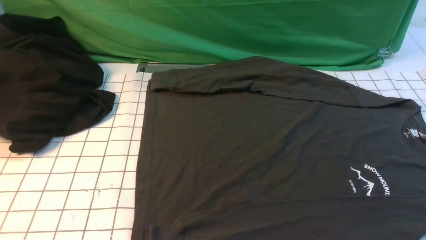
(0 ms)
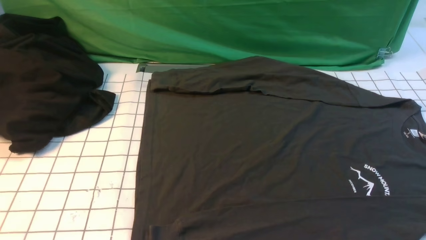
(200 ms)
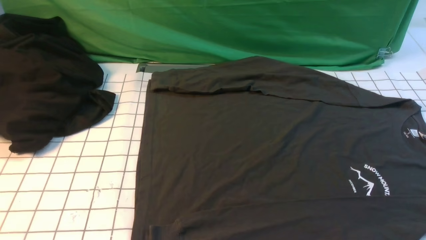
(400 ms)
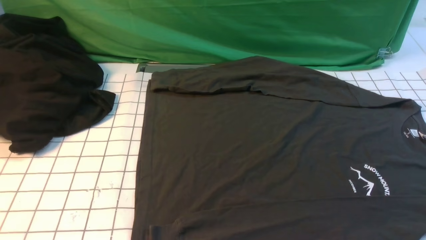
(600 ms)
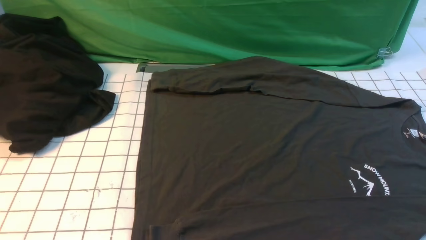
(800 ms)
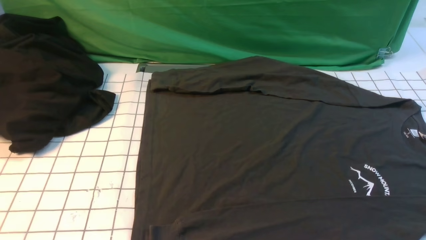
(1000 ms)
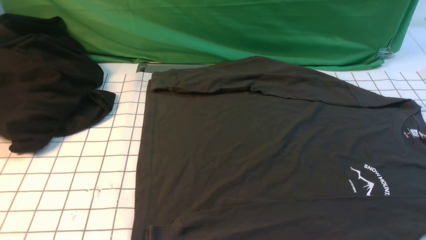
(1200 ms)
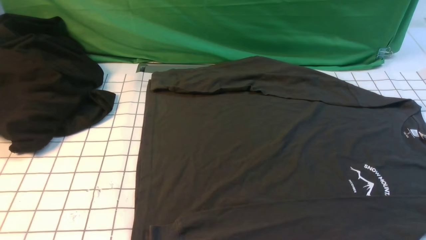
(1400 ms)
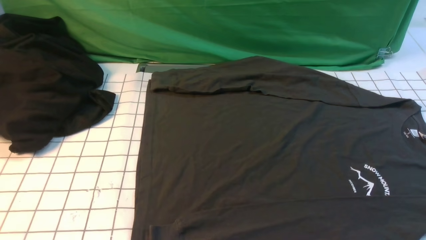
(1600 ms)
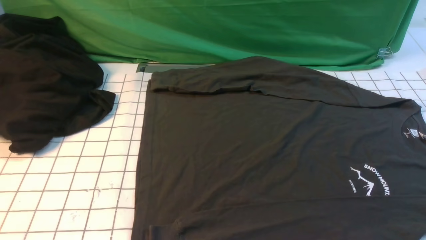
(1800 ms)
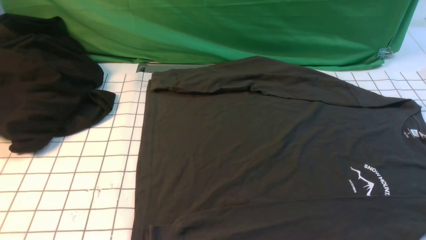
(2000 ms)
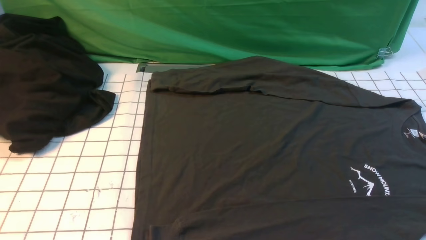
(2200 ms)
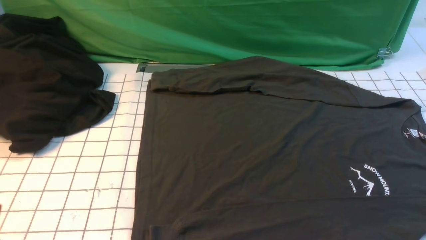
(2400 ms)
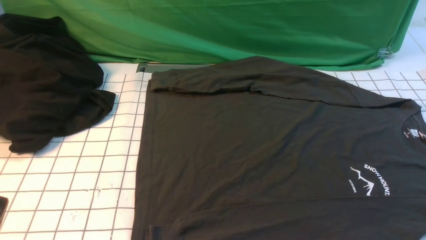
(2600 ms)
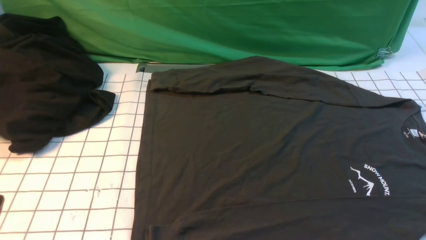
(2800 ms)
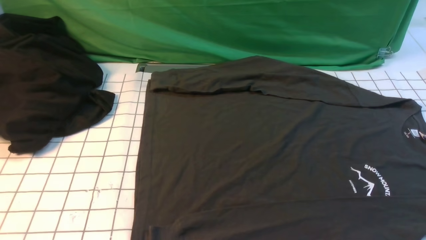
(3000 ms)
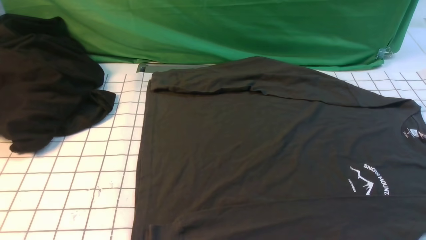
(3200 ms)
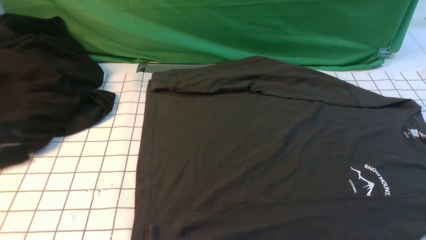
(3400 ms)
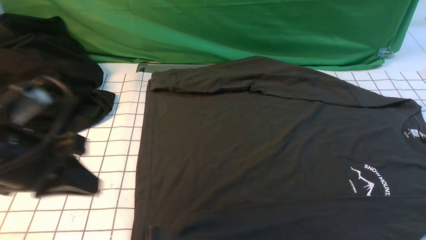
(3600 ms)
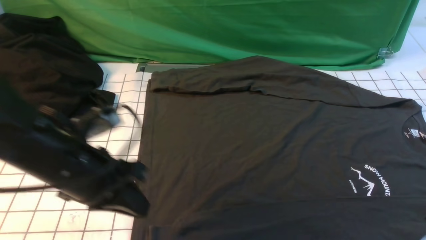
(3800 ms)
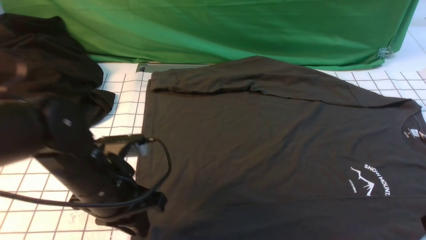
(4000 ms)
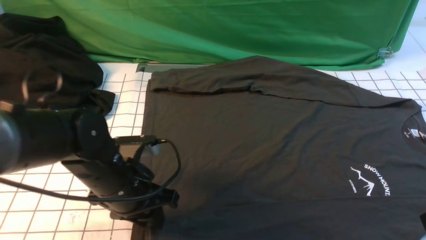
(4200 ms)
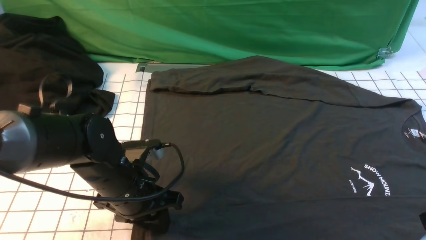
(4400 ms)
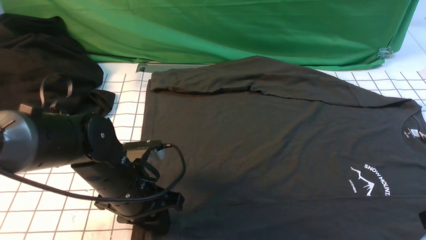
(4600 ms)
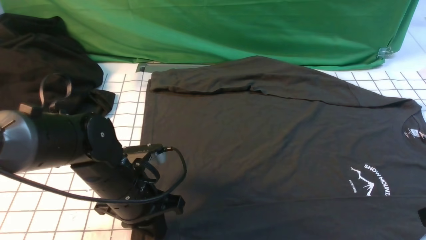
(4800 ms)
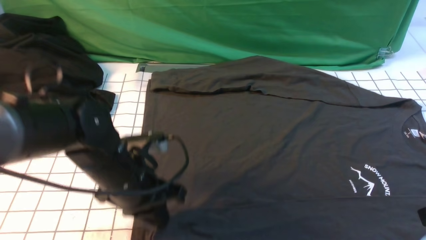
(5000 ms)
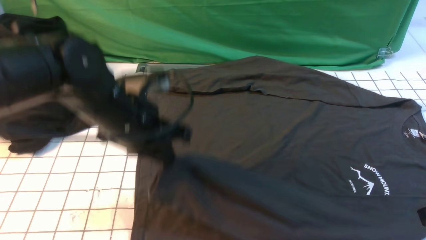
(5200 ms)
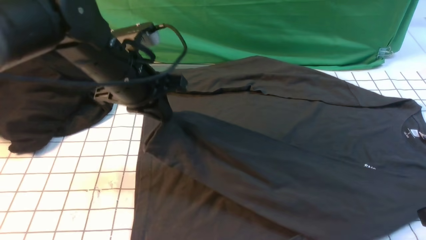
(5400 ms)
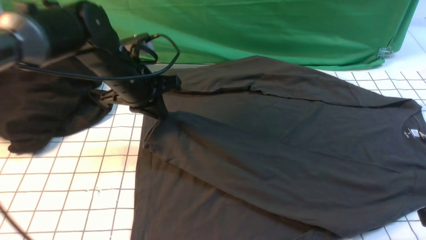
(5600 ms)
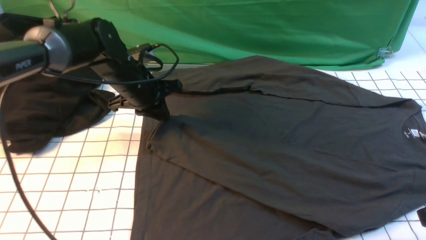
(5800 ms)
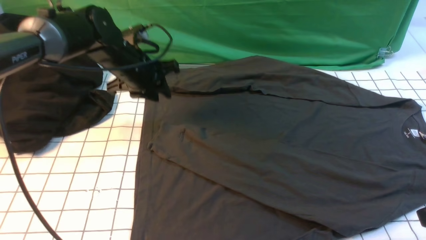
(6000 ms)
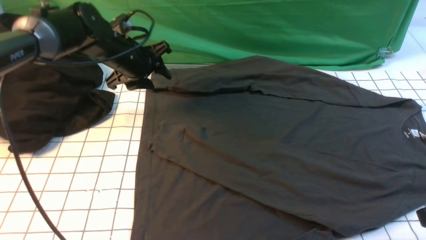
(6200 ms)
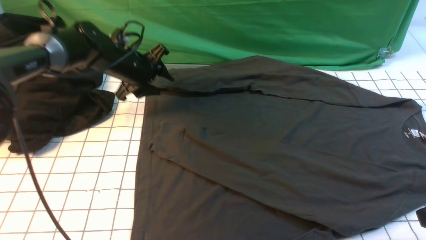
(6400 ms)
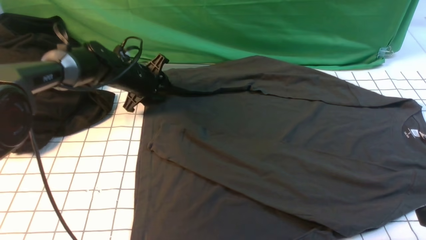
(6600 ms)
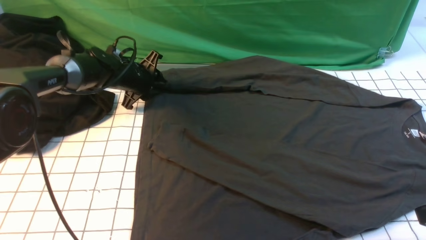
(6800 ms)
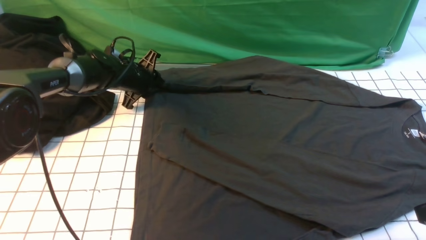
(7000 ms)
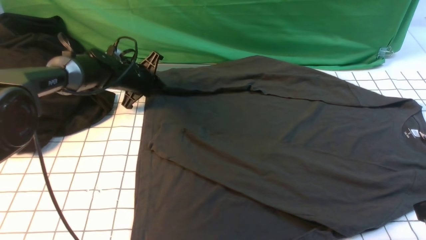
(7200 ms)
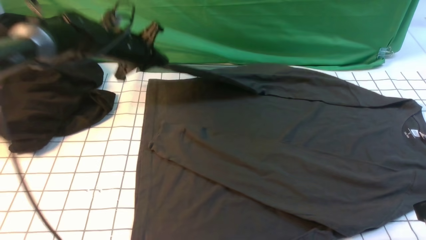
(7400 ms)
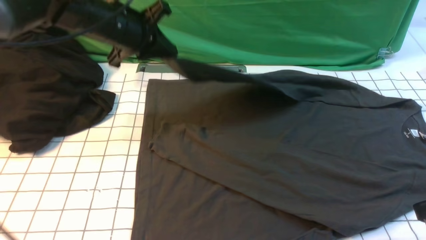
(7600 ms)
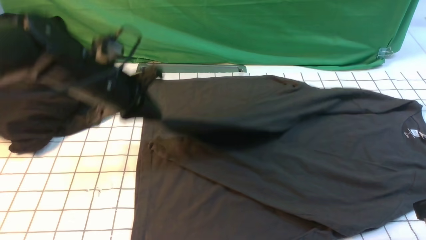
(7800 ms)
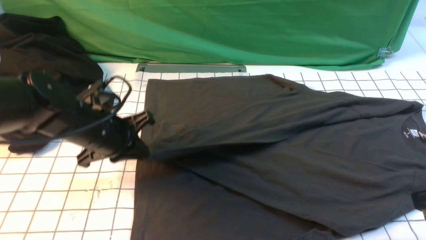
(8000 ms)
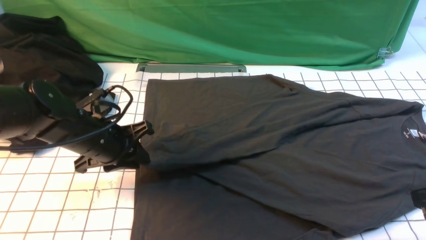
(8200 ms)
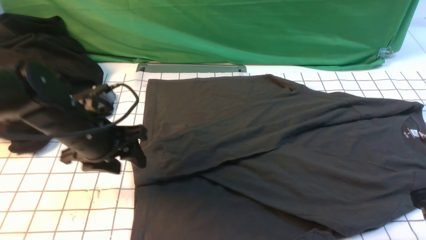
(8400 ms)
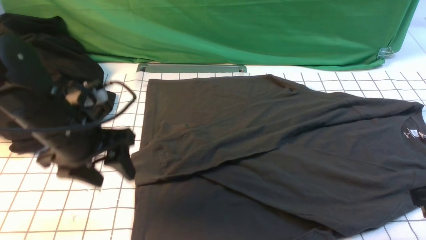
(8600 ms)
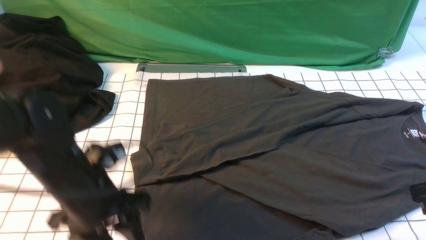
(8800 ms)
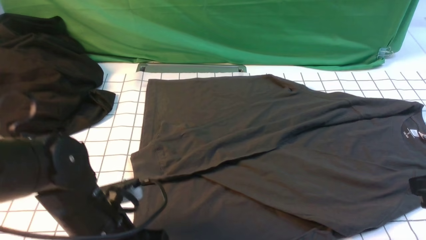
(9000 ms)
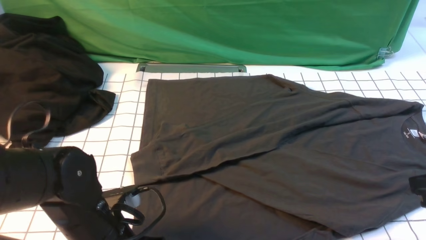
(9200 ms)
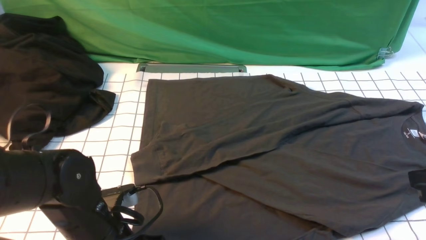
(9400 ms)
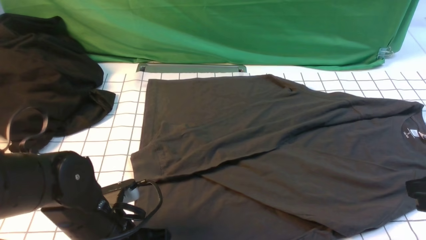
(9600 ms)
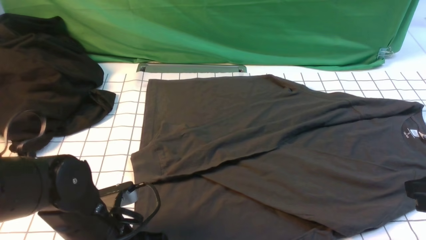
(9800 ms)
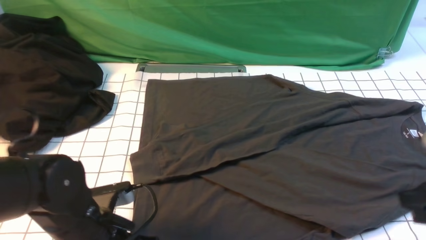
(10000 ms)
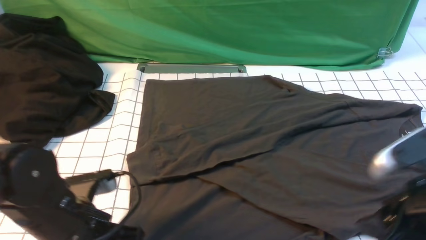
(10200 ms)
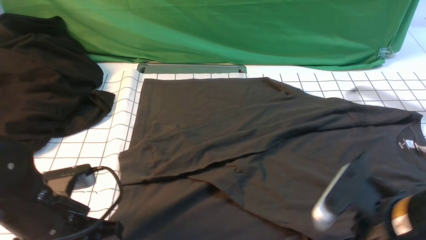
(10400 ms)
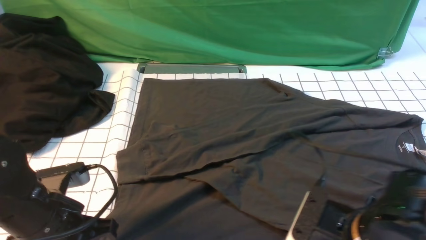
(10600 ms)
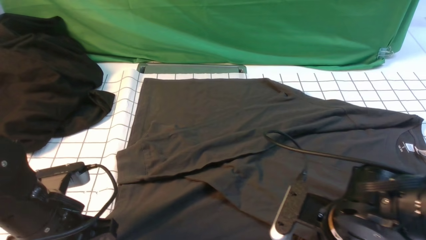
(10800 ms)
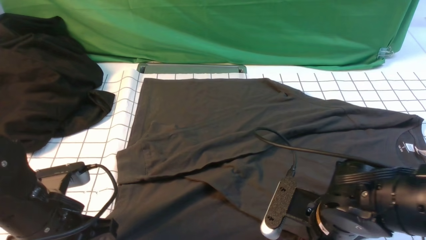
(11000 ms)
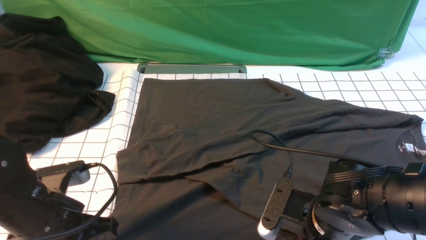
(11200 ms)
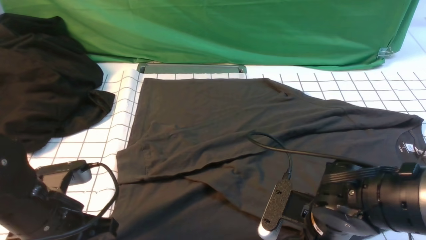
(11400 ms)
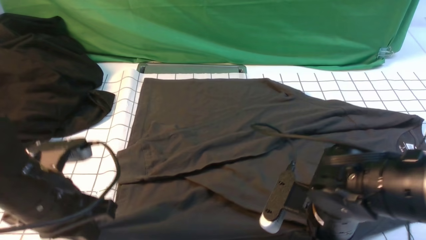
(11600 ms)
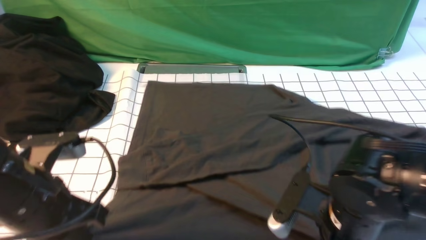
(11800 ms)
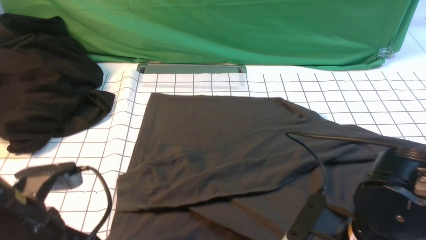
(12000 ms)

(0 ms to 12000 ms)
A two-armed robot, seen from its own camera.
Step, 0 ms - 4800 ms: use the left arm to clamp the cuff closest to it.
Step, 5000 ms - 5800 ms: use the left arm to drag and place the cuff at the centered position on the left edge of the fabric.
Step, 6000 ms - 7000 ms: use the left arm to clamp the cuff farthest from it.
Step, 7200 ms - 8200 ms: use the left arm to drag and drop the cuff onto the cuff closest to the left arm.
Step, 8400 ms - 11200 ms: use both arms simultaneously to clamp the lower edge of the clothing fabric.
0 ms - 1600 ms: The two grippers keep their place.
3000 ms - 4400 ms: The left gripper goes about 25 cm forward, to the right and downward, and opens up; the right gripper travels forward by about 10 cm.
4400 ms - 6000 ms: The left gripper moves forward, approximately 20 cm, and closes, then reopens.
6000 ms - 7600 ms: The left gripper heads upward, covering roughly 5 cm, and closes its fingers.
7600 ms - 9000 ms: The left gripper heads backward and downward, covering approximately 25 cm, and opens its fingers.
9000 ms - 10400 ms: The right gripper shifts approximately 10 cm to the left and downward, and opens up, while the left gripper moves about 5 cm, and closes its fingers.
10400 ms - 12000 ms: The right gripper closes up. The left gripper goes approximately 5 cm upward.

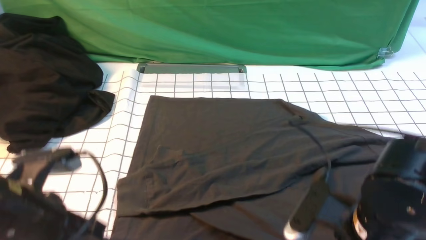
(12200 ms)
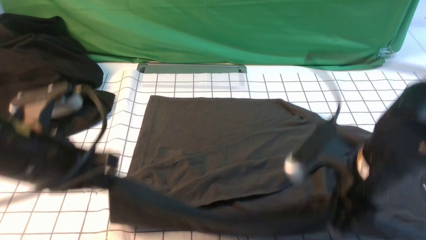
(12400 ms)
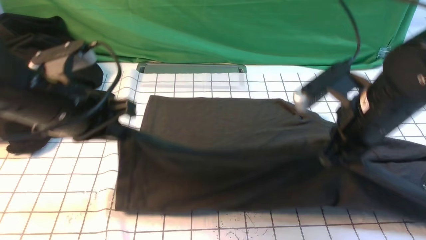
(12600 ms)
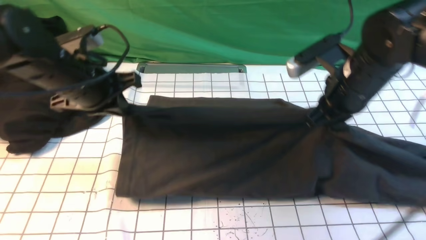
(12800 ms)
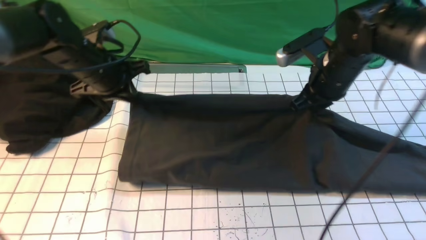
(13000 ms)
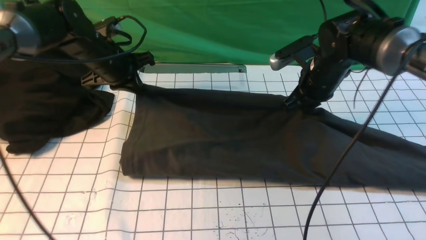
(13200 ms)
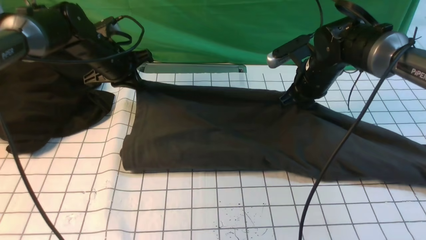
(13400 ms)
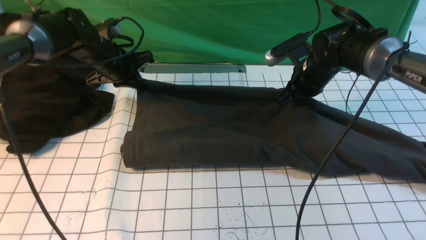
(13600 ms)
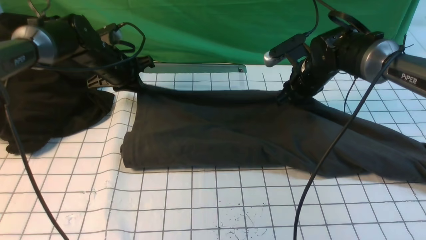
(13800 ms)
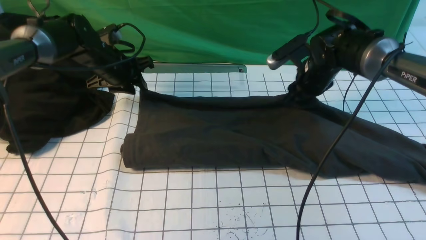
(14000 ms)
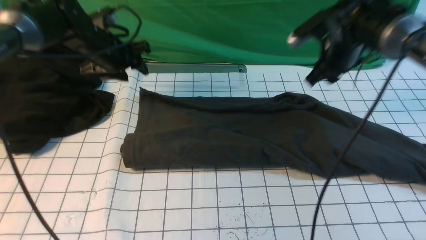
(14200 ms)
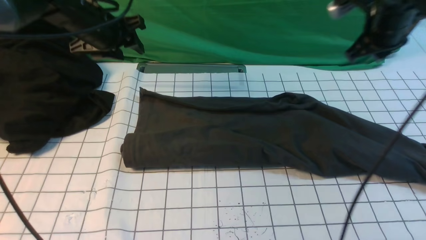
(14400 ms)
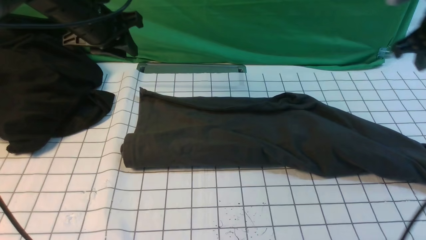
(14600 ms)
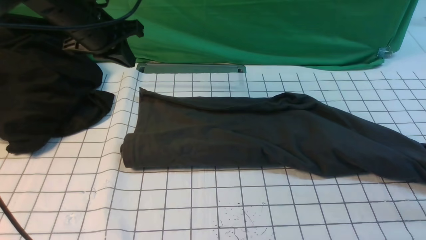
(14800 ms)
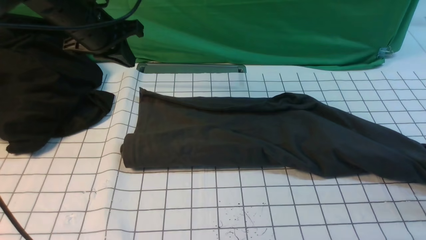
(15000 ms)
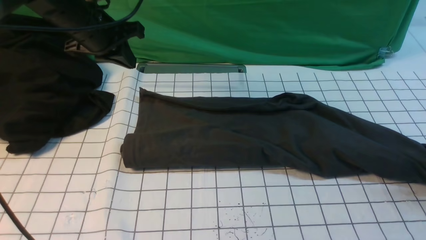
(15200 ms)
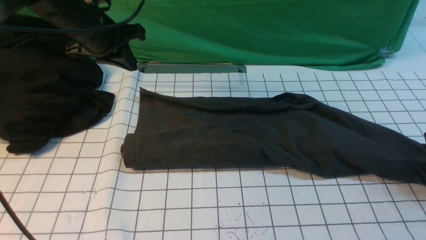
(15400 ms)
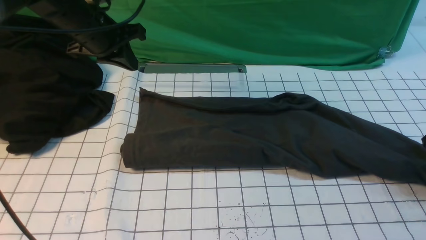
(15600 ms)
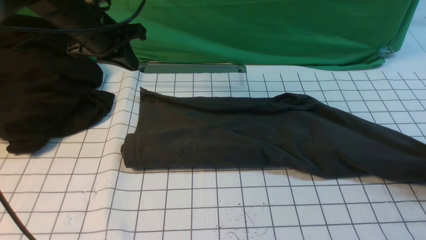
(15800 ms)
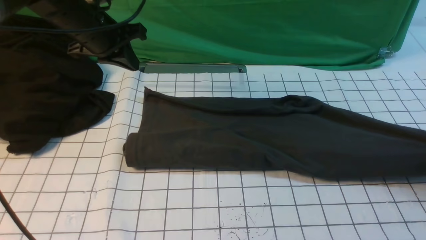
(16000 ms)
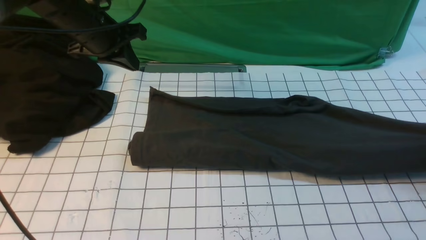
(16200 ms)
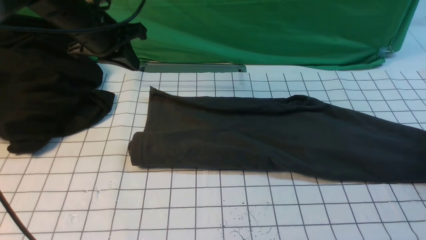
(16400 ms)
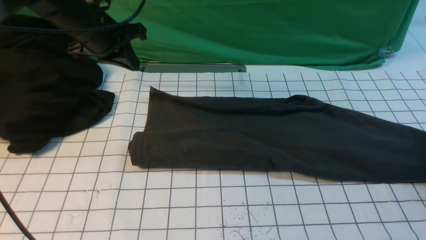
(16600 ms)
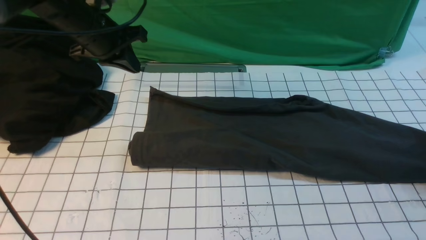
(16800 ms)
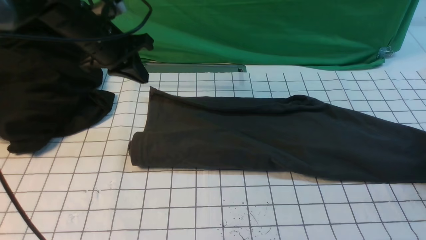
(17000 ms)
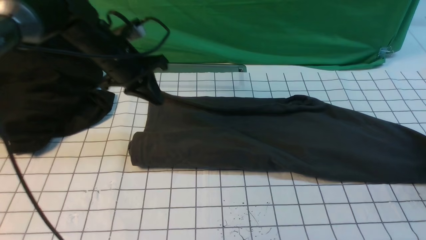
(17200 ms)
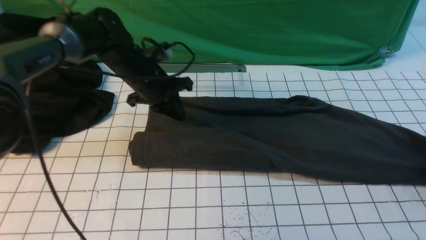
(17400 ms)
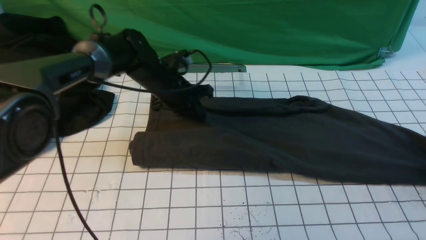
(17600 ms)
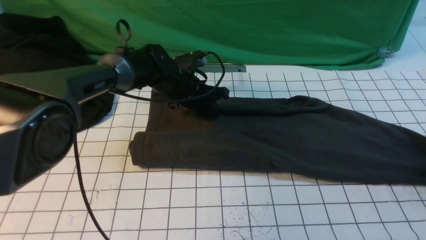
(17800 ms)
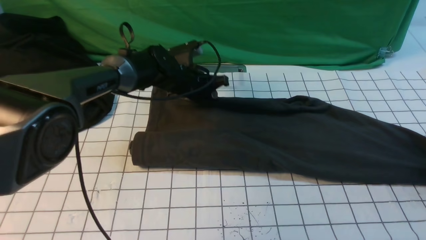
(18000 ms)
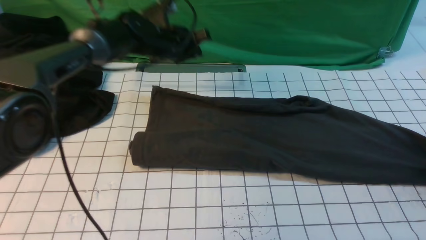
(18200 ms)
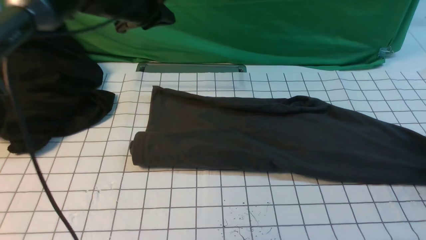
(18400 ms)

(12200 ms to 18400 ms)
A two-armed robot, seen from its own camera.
Step, 12200 ms - 14000 ms: use both arms to drag the lower edge of the fabric forward and fold it over the upper edge.
12200 ms - 13800 ms: Both grippers travel together forward, roughly 30 cm. The right gripper opens its fingers.
13800 ms - 15400 ms: The left gripper heads upward and backward, covering some 10 cm, and opens, then closes once more. The right gripper heads to the right and backward, covering about 30 cm, and closes and opens again.
15400 ms - 16800 ms: The right gripper opens its fingers.
16800 ms - 18400 ms: The left gripper travels forward and to the right by about 10 cm, and travels downward and back again, about 15 cm each way. Meanwhile the right gripper closes.
